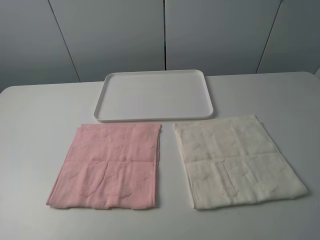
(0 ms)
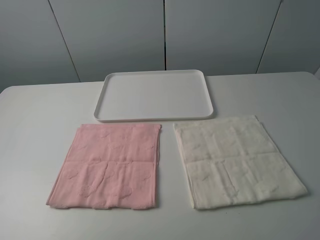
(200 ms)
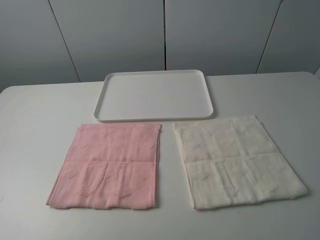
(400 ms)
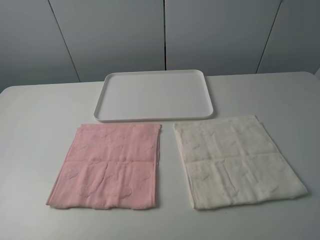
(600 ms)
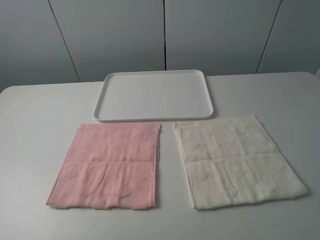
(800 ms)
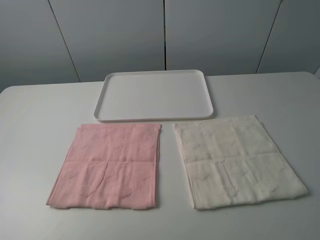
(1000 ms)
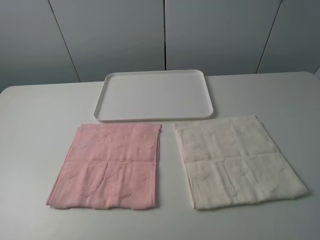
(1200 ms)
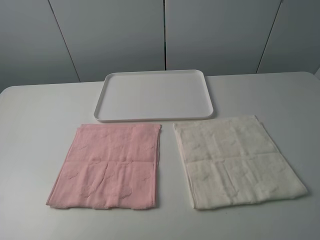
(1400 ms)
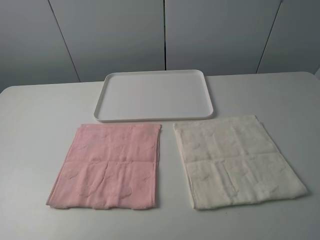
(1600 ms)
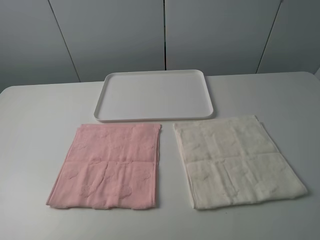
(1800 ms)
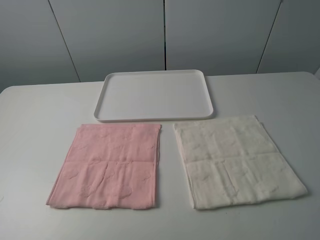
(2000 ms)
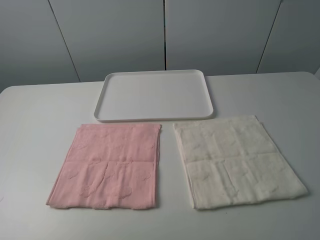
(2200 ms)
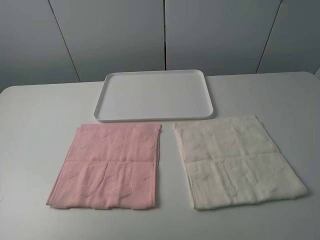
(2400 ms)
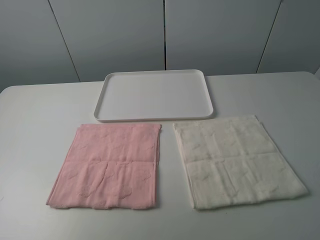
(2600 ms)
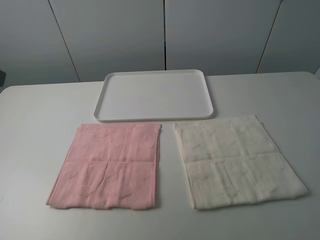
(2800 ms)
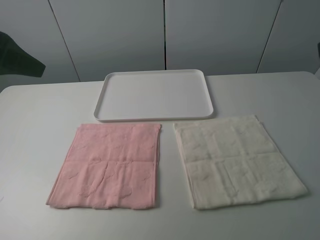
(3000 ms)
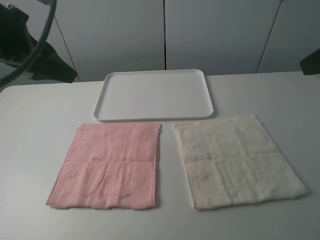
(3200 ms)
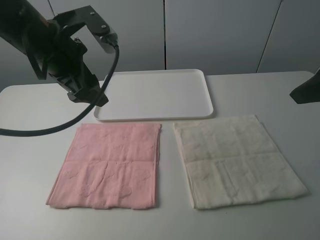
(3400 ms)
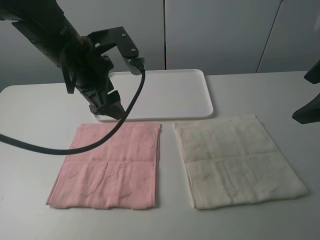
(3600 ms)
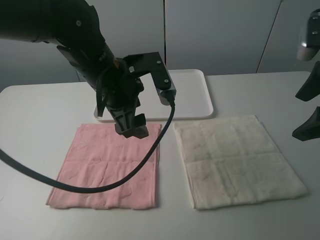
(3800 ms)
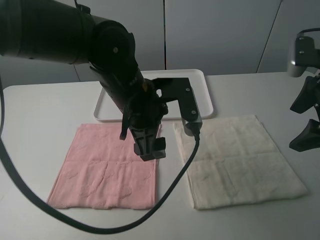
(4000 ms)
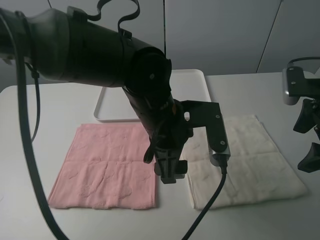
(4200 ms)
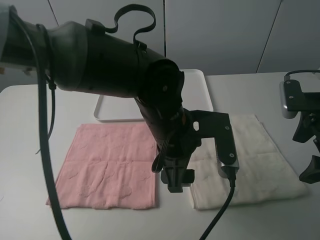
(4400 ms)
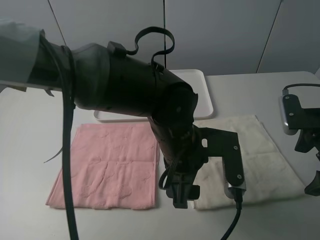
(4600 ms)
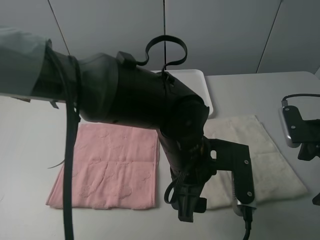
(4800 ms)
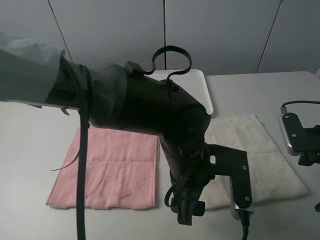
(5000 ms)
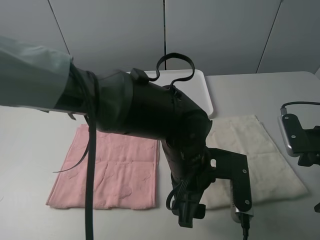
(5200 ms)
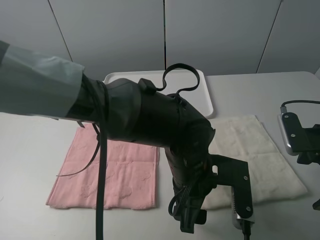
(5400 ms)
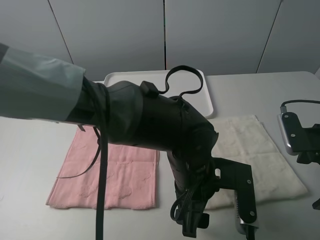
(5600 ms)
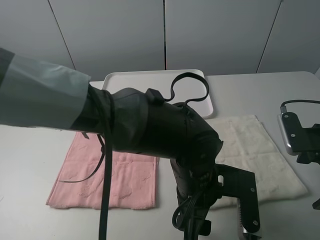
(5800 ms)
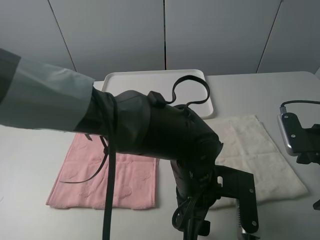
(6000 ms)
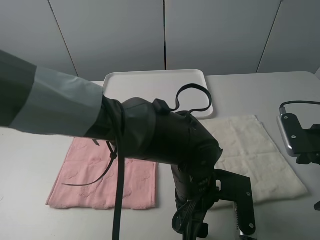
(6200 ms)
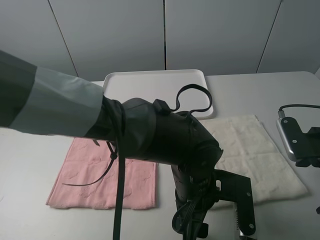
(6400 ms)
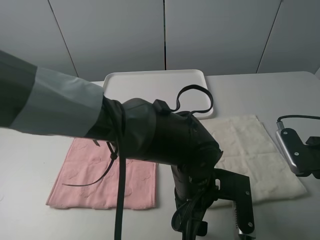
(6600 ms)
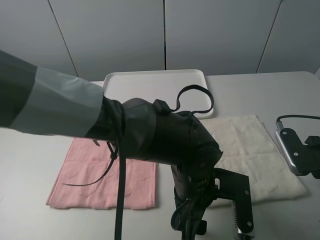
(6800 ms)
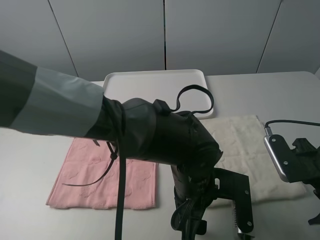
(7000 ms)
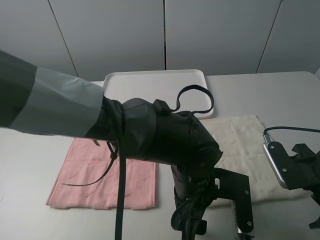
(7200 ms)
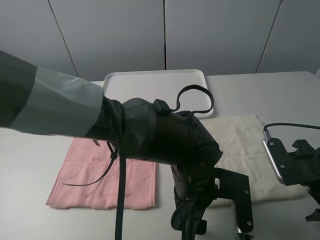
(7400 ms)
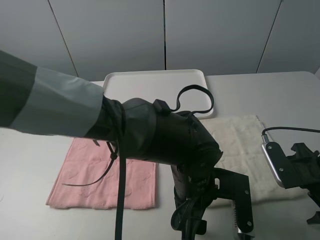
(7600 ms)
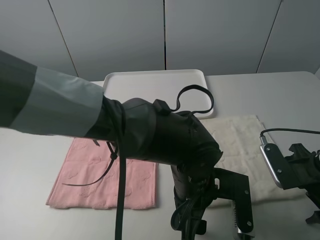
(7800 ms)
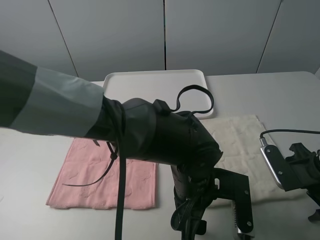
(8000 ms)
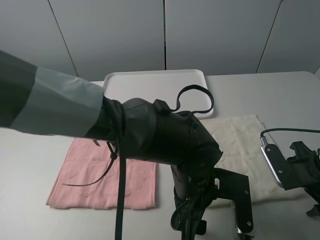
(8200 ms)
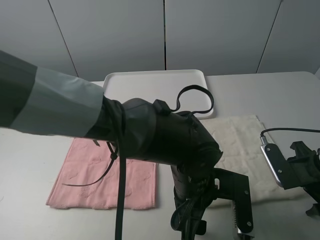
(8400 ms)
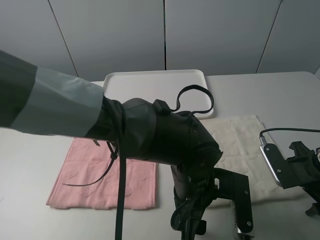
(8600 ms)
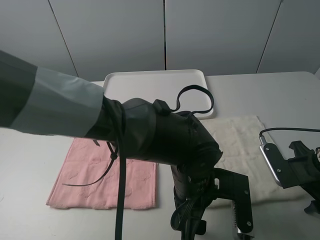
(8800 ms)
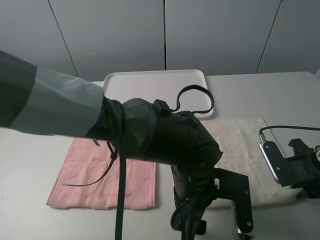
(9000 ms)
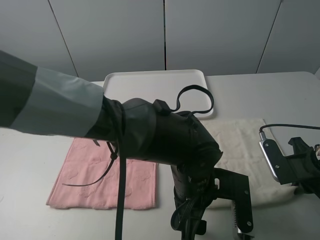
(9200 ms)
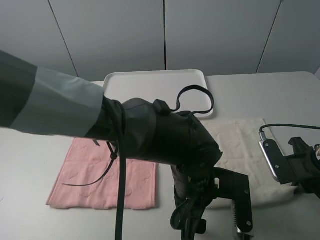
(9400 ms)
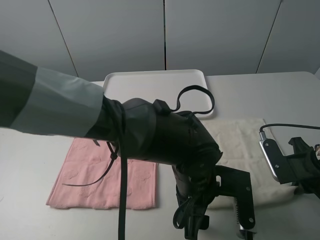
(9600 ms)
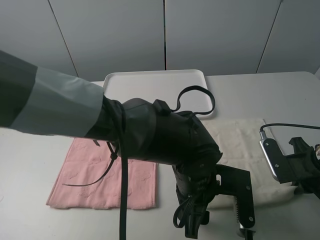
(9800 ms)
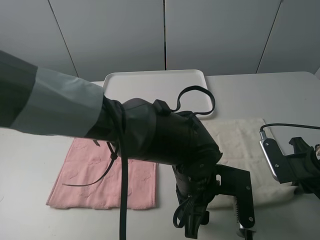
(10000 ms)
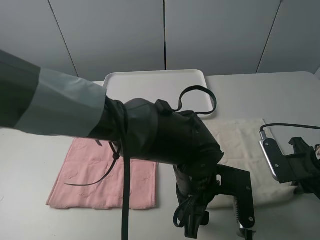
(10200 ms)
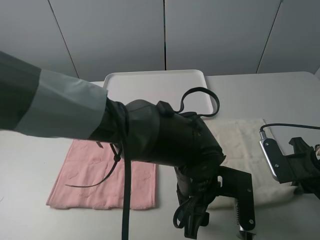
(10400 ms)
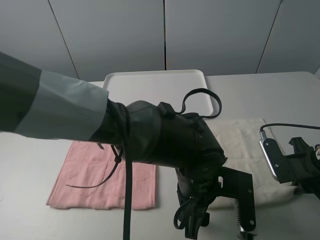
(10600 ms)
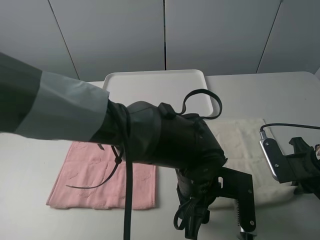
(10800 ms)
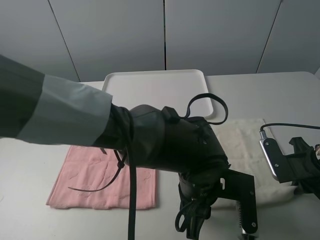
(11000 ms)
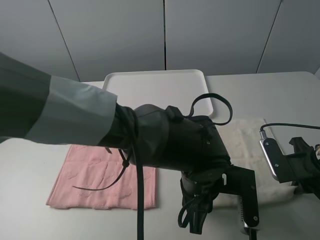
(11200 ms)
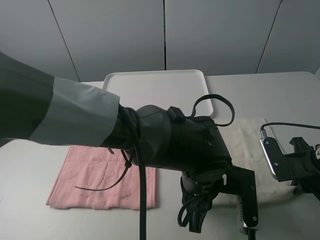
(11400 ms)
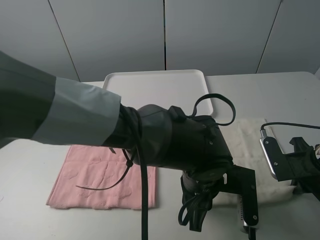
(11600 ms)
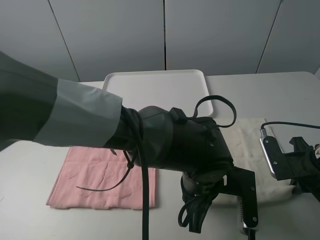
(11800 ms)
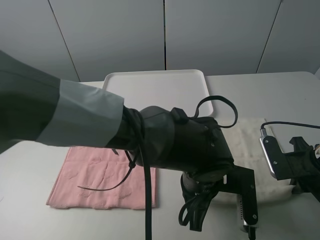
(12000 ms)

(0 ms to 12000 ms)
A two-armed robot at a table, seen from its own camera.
Task of the whole recording: fold one of the towels by two grippers and place it on the tray,then fold another towel by two grippers and place it on the folded towel.
Step, 0 ms - 11200 ms: Grasp the white towel with the left gripper.
0 ms - 1600 ms: Both grippers stay put.
1600 ms - 3000 ms: The left gripper goes roughly 25 cm forward.
3000 ms - 4400 ms: The right gripper heads downward, covering some 15 cm, while the left gripper travels to the right and downward by approximately 35 cm.
4400 ms - 6000 ms: The left gripper goes roughly 10 cm downward and backward.
6000 ms - 7600 ms: The grippers make only small movements.
7600 ms - 9000 ms: The right gripper closes its fingers.
9000 ms - 10400 ms: Neither gripper changes place.
10400 ms - 12000 ms: The left gripper closes up.

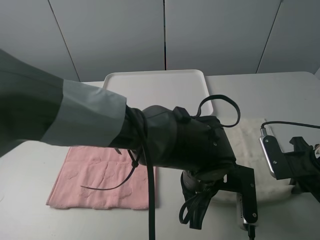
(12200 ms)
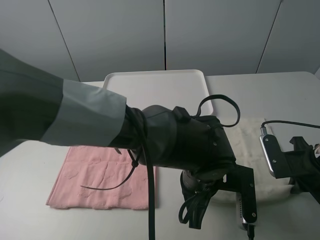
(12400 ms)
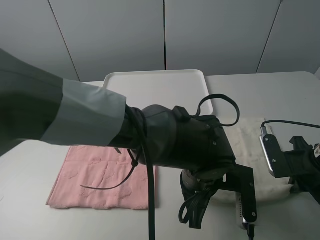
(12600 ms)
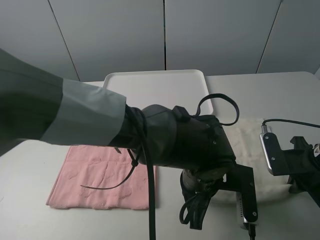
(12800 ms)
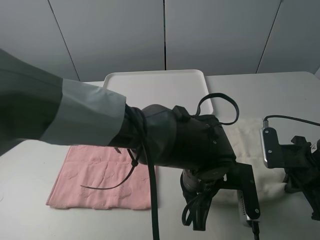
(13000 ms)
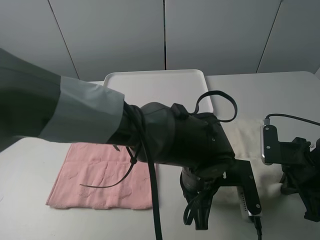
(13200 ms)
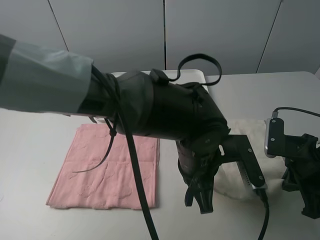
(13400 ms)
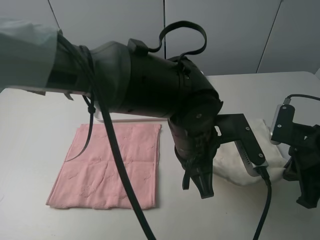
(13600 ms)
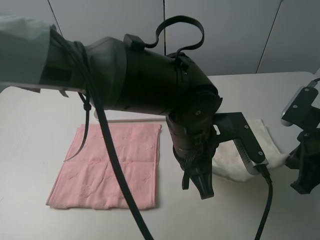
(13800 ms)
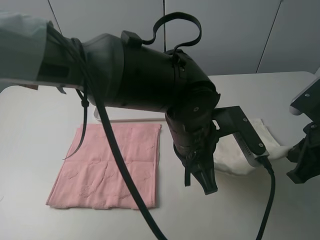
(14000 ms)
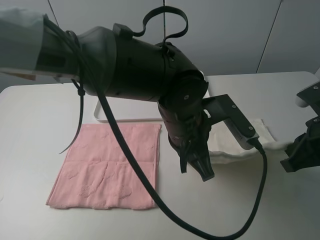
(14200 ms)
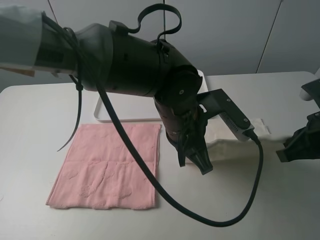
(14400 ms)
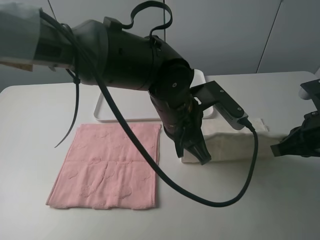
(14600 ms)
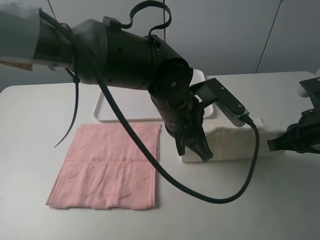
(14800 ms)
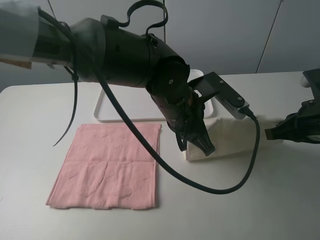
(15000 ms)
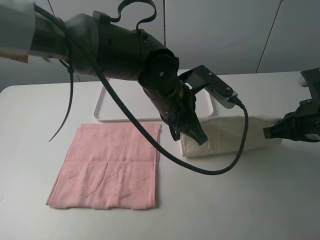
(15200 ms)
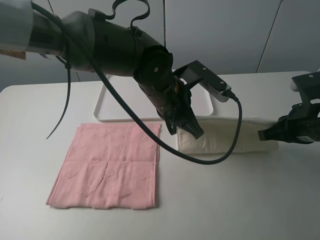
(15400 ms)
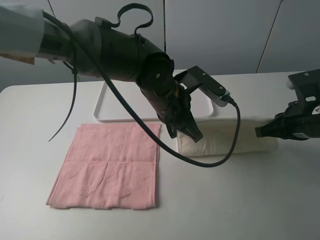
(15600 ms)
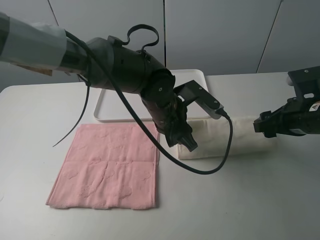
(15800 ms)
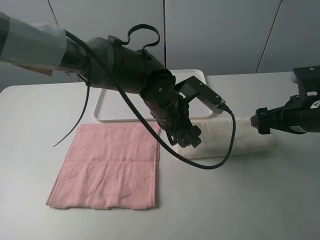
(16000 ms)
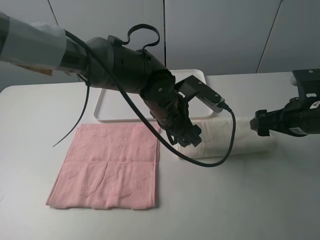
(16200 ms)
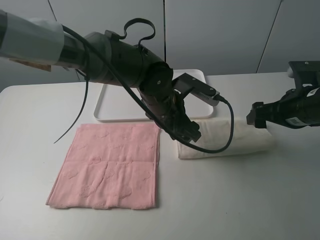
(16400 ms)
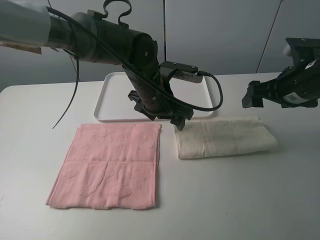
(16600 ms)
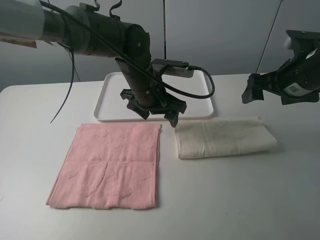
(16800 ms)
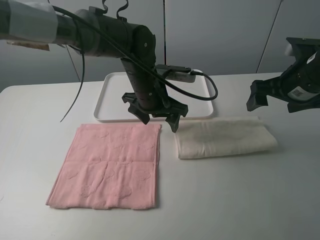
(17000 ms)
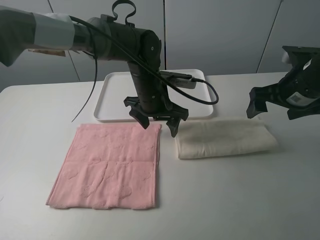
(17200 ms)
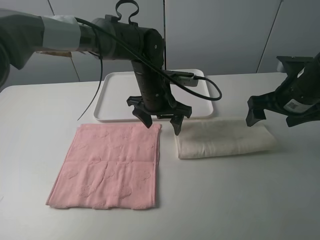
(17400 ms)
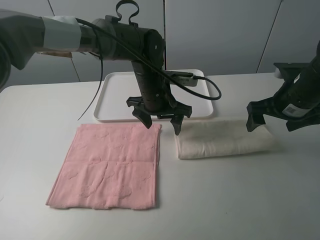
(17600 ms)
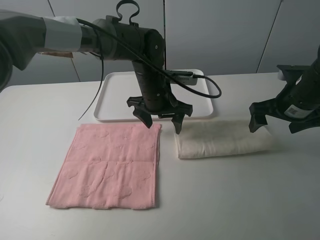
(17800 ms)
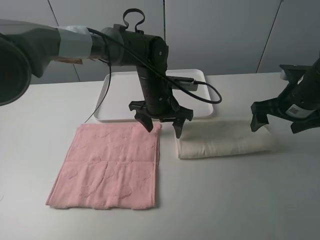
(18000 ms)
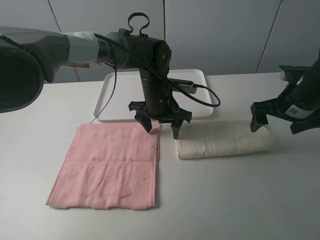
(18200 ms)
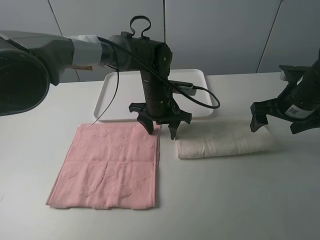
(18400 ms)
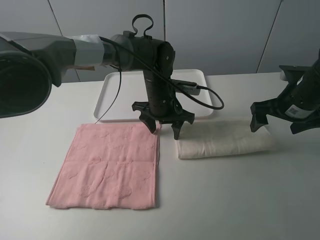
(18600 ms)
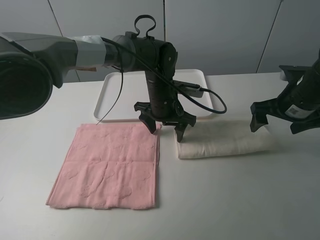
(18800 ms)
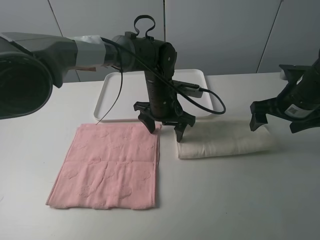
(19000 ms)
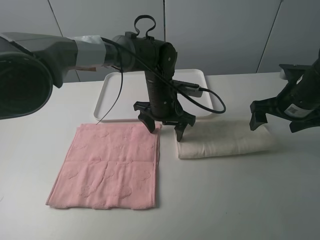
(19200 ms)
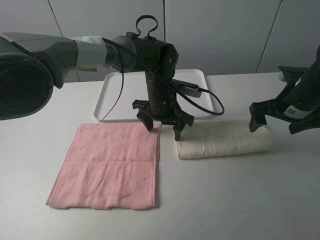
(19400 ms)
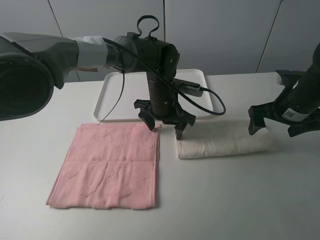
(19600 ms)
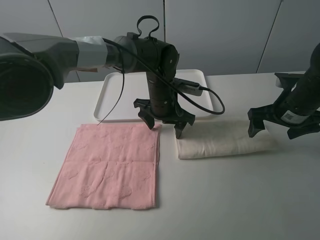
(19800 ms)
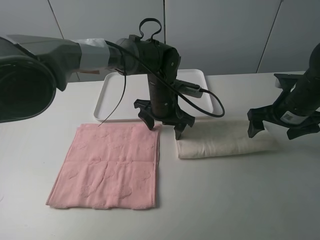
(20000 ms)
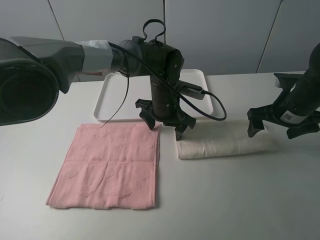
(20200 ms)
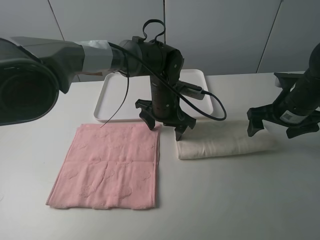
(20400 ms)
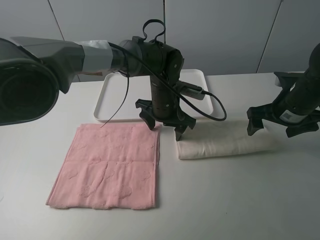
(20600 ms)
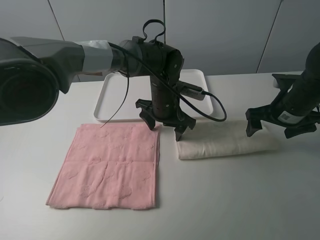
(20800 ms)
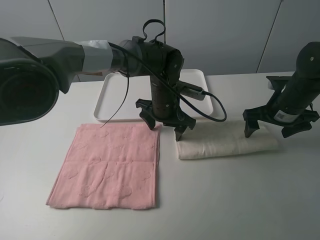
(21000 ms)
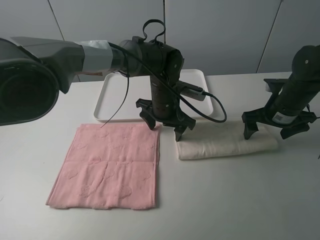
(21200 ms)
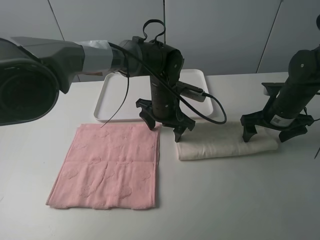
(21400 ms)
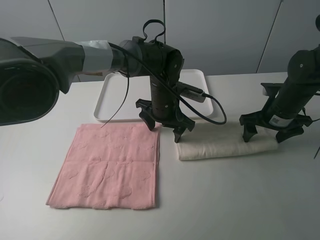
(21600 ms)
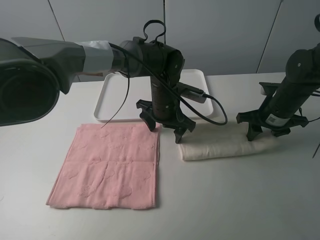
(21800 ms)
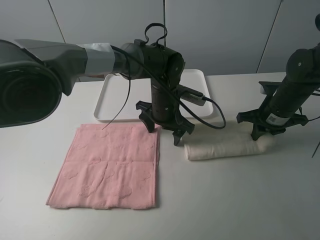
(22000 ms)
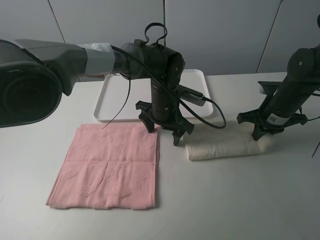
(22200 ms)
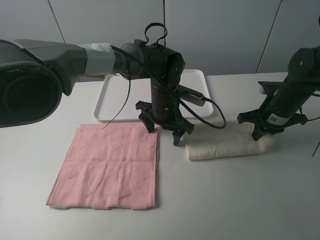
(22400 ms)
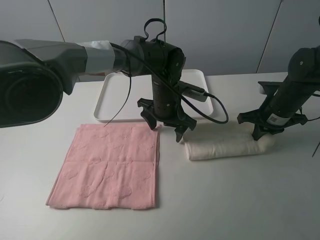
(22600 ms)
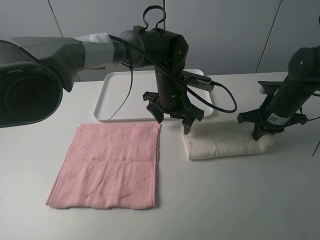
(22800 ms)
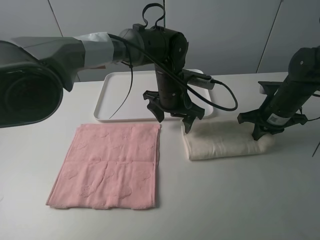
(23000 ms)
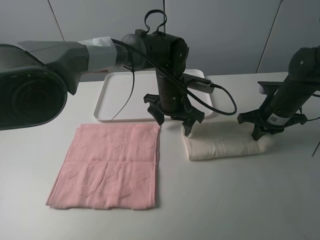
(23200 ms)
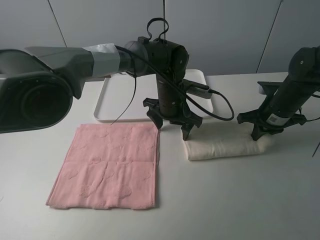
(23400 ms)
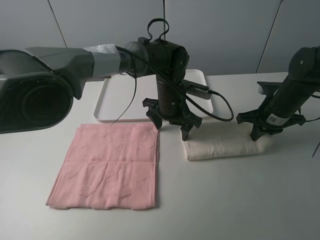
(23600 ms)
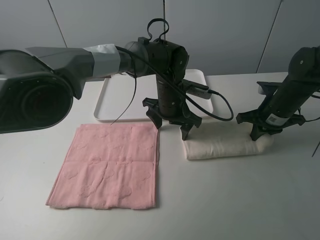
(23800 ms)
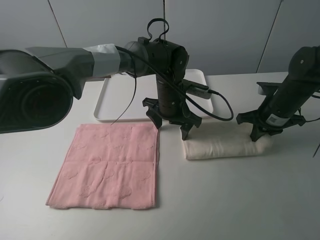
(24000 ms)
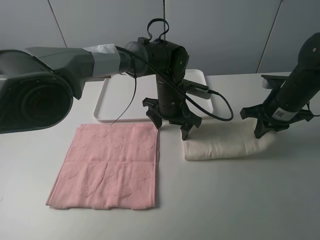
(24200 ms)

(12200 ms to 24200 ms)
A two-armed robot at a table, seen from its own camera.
Task of the whole recording: fold one of the towels by two grippers and place it on the tray,then fold another towel by two grippers and place it on the folded towel.
Step, 12200 ms - 16000 ms: Fold the white towel upwards with the left gripper.
Step, 16200 ms - 18200 ms: Press the white towel with the left gripper.
Step, 18400 ms - 22000 ms: Grasp the white towel with the right gripper.
12200 ms - 13800 ms: The grippers both shift upward by approximately 5 cm.
13800 ms - 15200 ms: The left gripper goes some 10 cm forward.
15200 ms - 16600 ms: Both grippers travel together forward, some 5 cm. The left gripper opens, while the right gripper opens.
16600 ms - 18200 ms: The left gripper moves approximately 5 cm.
18200 ms - 21200 ms: There are only small adjustments of the grippers.
21200 ms - 22600 ms: The right gripper closes up.
22600 ms - 24200 ms: The grippers make only small movements.
